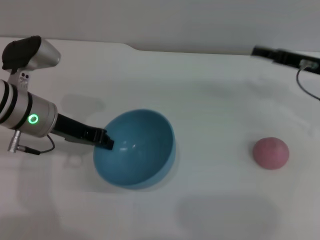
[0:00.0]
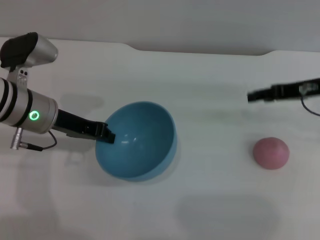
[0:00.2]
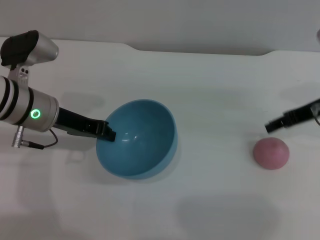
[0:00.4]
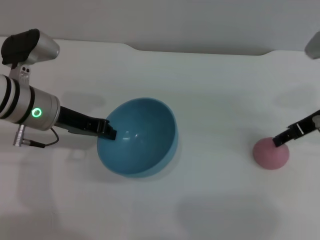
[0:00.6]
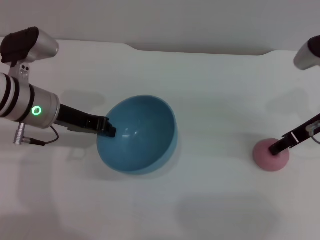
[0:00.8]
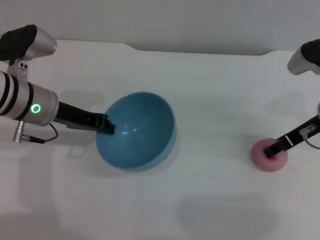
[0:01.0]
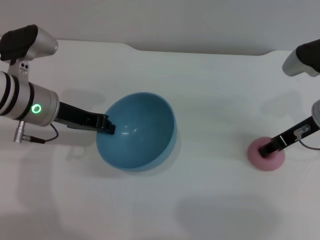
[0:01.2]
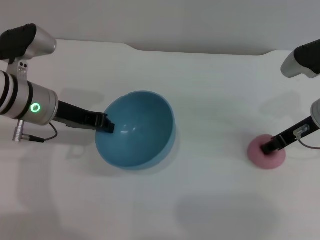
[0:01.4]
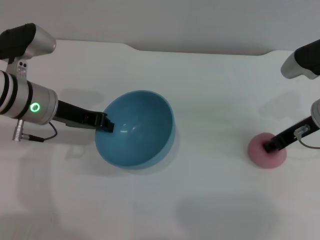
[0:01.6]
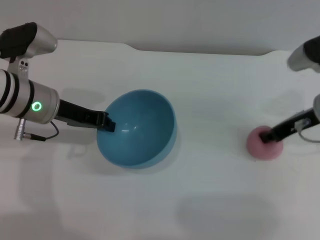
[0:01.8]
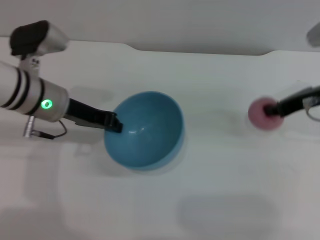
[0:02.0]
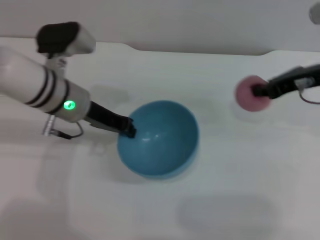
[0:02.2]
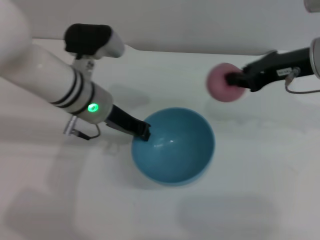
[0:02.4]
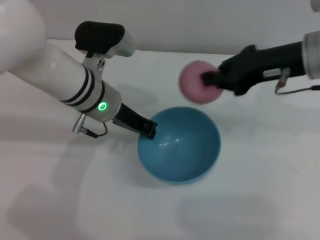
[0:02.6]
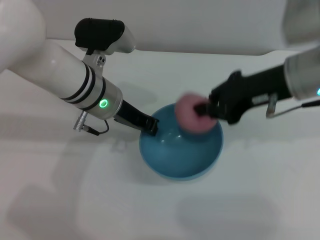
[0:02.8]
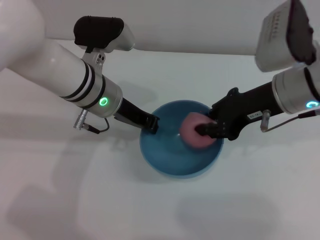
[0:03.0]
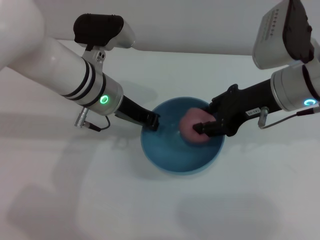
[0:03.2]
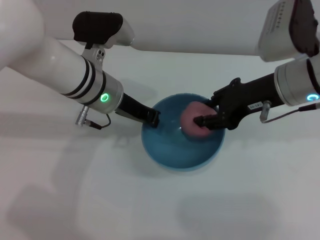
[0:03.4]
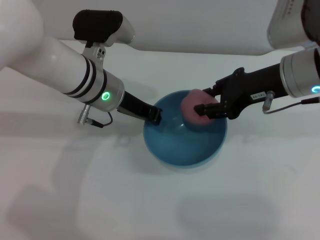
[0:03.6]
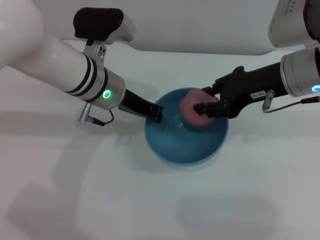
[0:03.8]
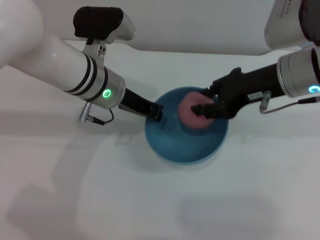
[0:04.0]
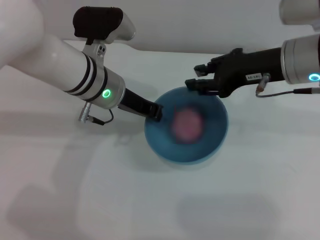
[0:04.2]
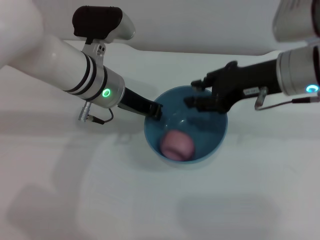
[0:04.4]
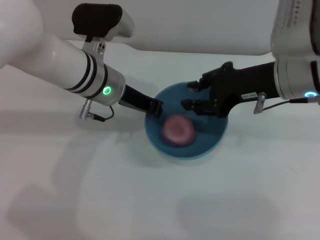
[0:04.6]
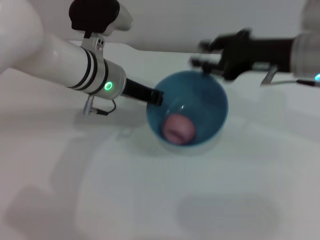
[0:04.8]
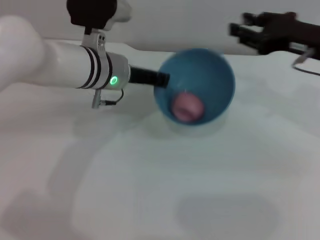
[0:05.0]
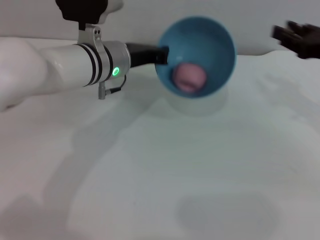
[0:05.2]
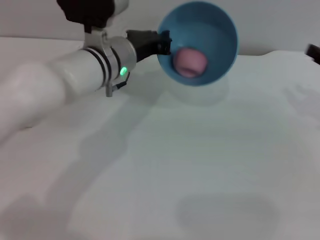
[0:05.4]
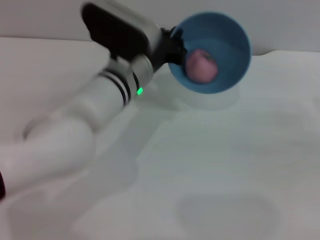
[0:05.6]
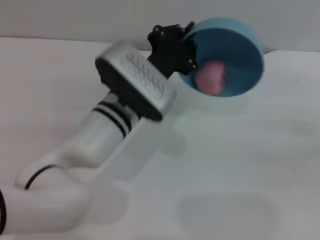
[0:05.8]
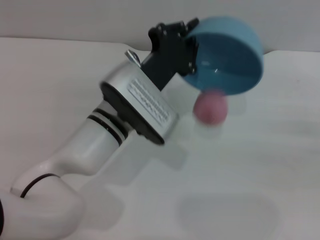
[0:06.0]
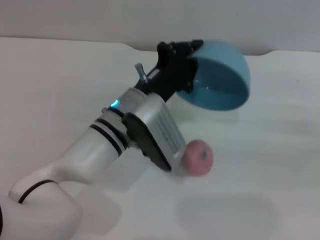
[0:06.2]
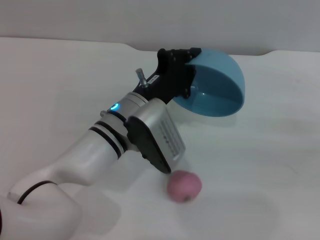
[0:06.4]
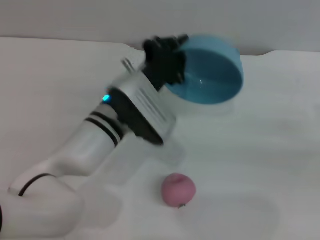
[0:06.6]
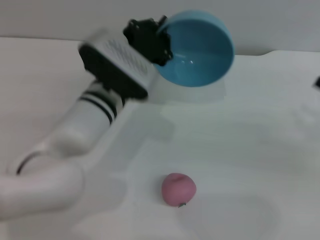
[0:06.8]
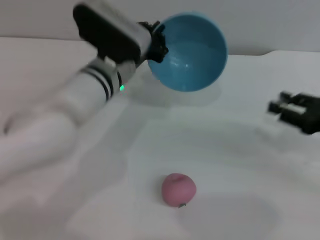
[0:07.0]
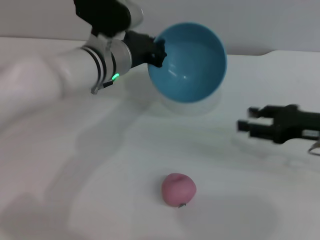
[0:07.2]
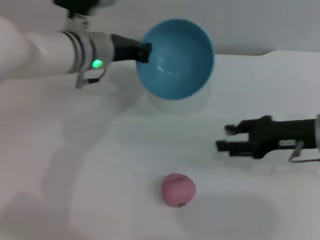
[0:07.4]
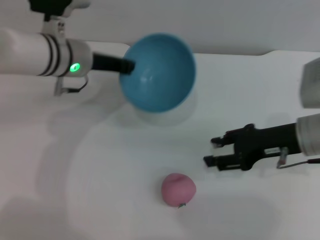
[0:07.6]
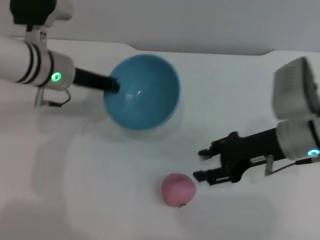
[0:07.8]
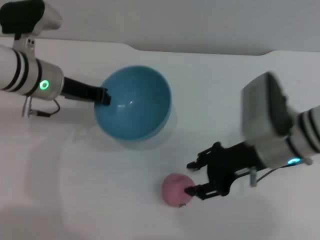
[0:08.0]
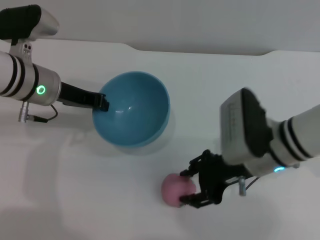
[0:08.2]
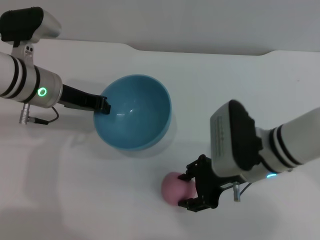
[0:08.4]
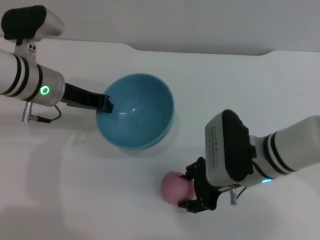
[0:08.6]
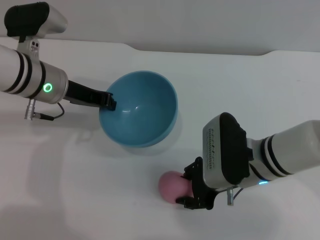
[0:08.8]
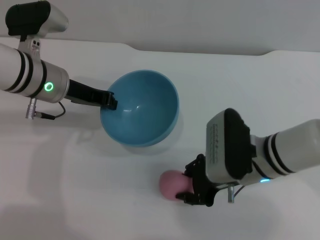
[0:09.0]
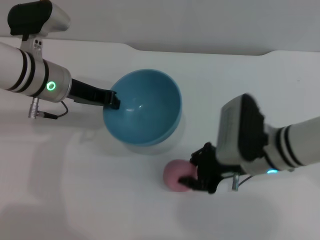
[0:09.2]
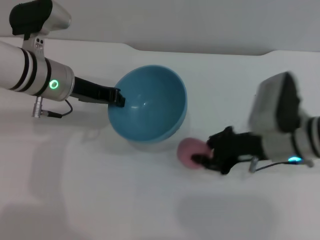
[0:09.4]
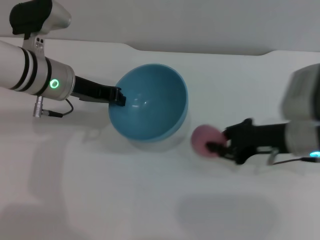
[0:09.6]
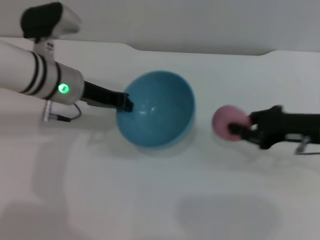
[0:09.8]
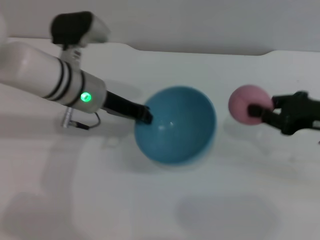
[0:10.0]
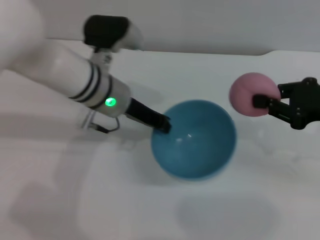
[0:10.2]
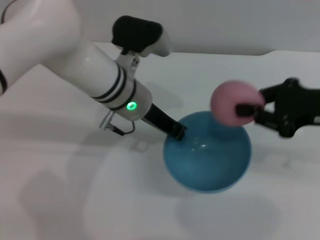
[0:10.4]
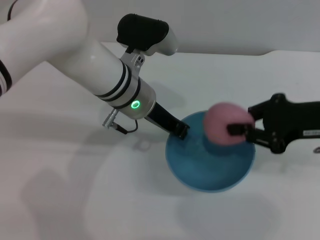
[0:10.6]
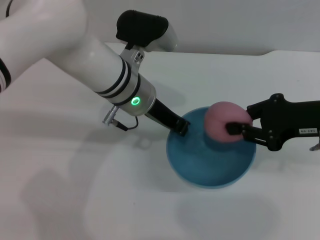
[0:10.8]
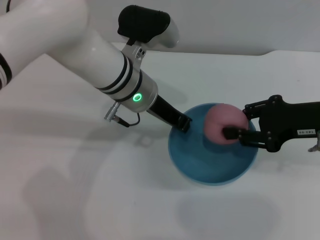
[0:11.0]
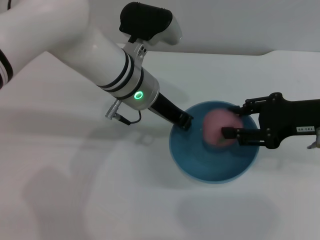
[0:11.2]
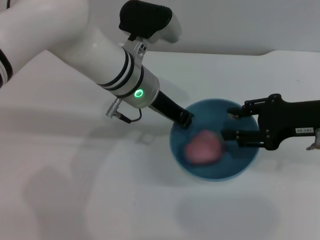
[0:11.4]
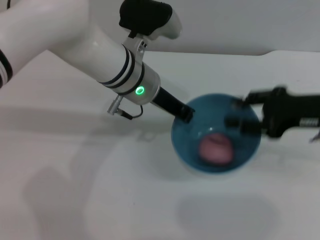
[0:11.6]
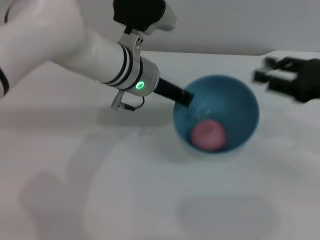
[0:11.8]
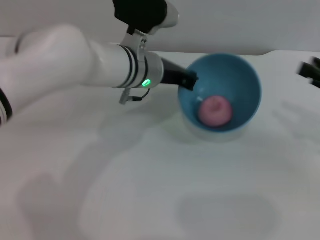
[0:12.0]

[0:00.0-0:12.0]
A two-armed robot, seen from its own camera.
Task of the whole recording: put the peach into the blue bowl and pour it out repeatedly.
Step, 0:00.8 to 0:02.0: Pick up the peach with the right gripper.
Step, 0:02.2 to 0:04.2: Place the peach into the bowl.
Step, 0:04.4 to 0:06.2: Pour the peach out of bowl.
Step, 0:06.4 to 0:09.6: Pick up the peach with the right gripper.
Step, 0:10.0 to 0:11.6: Place the peach into the bowl.
0:01.6 to 0:03.0: The right gripper moves to the left and upward, some 10 cm, and closes its fingers. Meanwhile the left gripper shifts approximately 10 cm to the right.
0:03.0 to 0:04.4: The right gripper opens up.
0:04.4 to 0:06.0: The right gripper shifts approximately 25 cm to the right and downward, while the left gripper shifts some 5 cm backward.
0:06.0 to 0:07.6: The right gripper travels to the left by about 20 cm, while the left gripper moves to the left and forward, roughly 15 cm.
0:07.6 to 0:09.0: The right gripper goes roughly 10 cm to the left.
0:09.0 to 0:10.4: The right gripper is displaced to the right and upward by about 15 cm, and closes up. Meanwhile the left gripper is displaced to the right by approximately 10 cm.
0:10.4 to 0:12.0: The right gripper goes some 10 cm to the right, and opens up.

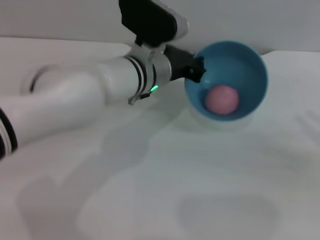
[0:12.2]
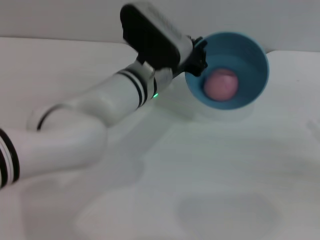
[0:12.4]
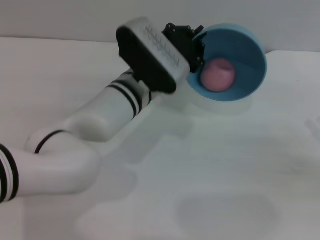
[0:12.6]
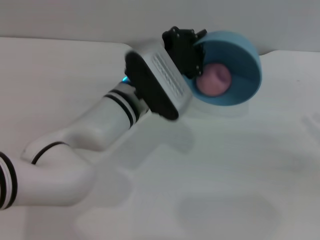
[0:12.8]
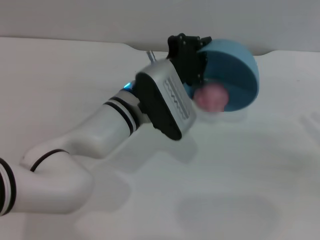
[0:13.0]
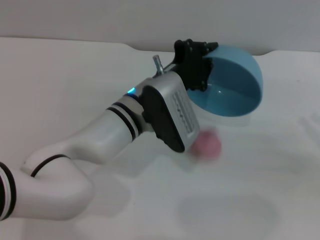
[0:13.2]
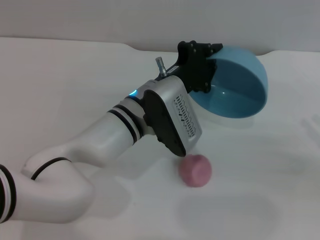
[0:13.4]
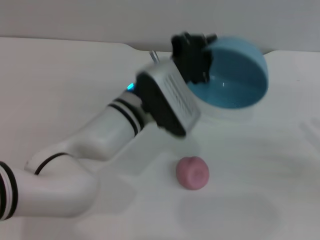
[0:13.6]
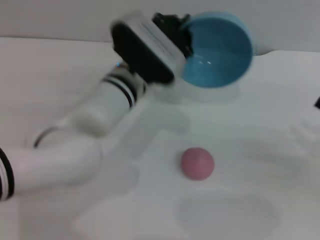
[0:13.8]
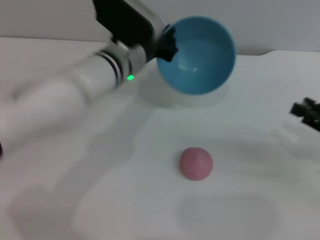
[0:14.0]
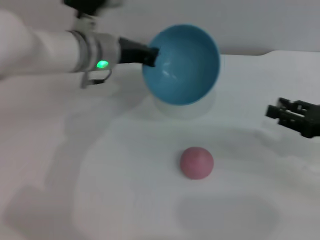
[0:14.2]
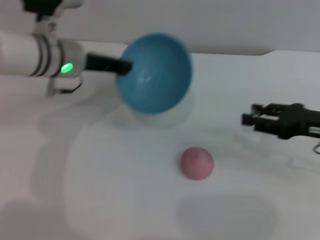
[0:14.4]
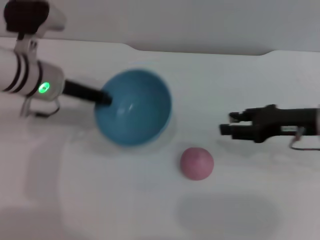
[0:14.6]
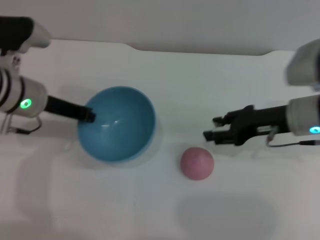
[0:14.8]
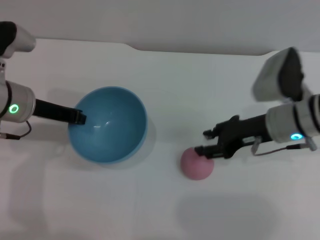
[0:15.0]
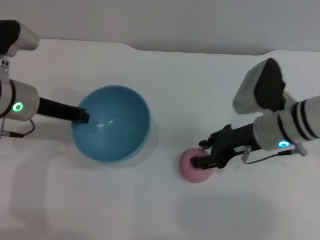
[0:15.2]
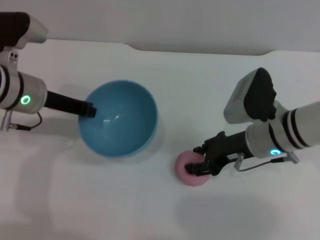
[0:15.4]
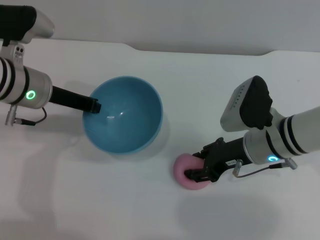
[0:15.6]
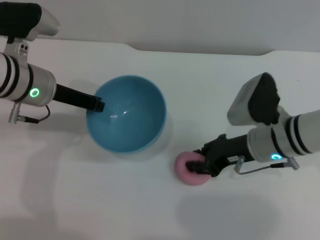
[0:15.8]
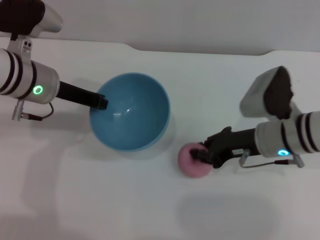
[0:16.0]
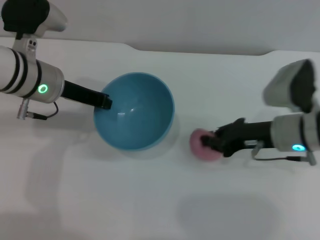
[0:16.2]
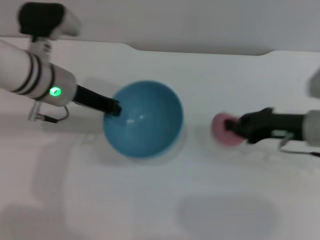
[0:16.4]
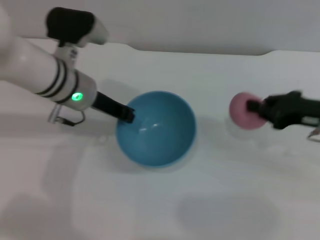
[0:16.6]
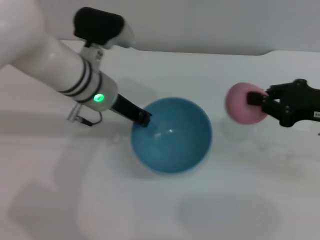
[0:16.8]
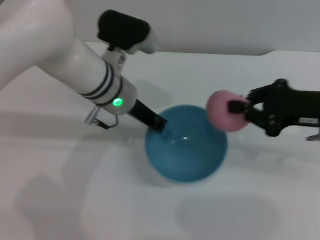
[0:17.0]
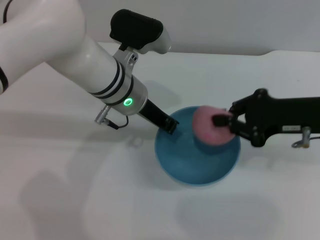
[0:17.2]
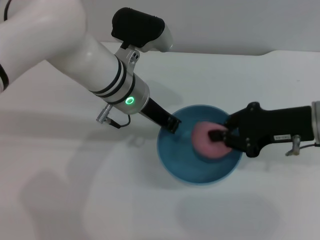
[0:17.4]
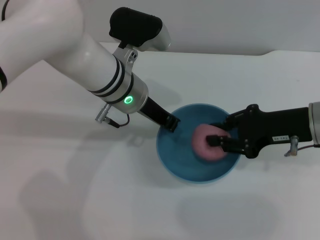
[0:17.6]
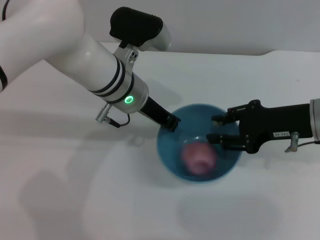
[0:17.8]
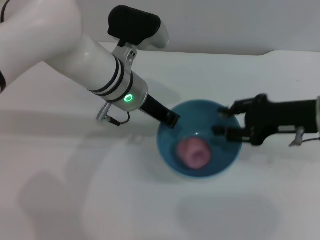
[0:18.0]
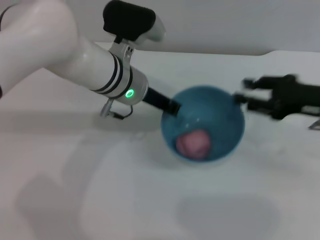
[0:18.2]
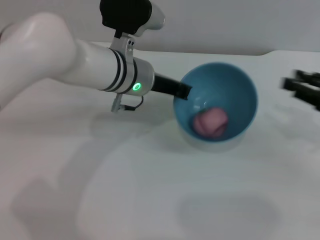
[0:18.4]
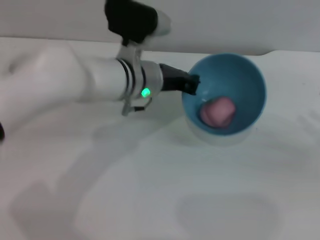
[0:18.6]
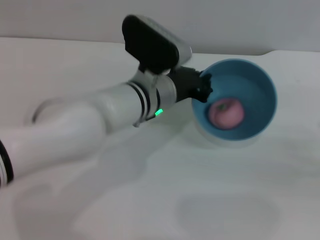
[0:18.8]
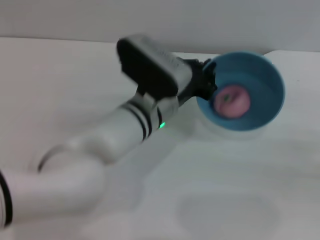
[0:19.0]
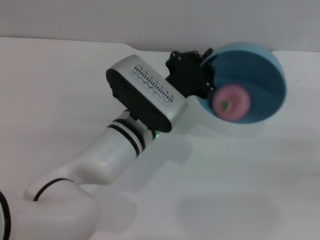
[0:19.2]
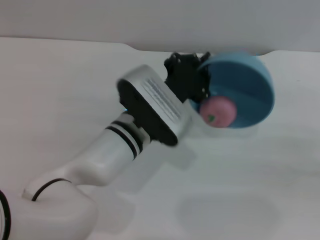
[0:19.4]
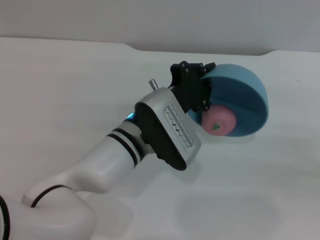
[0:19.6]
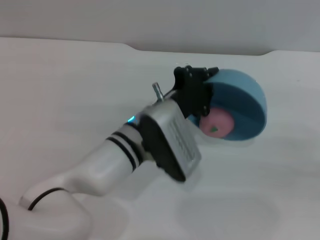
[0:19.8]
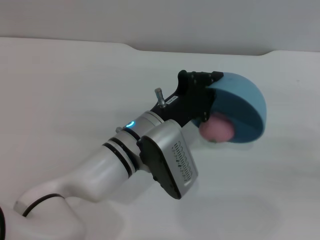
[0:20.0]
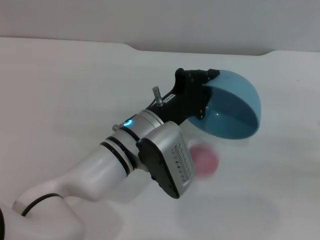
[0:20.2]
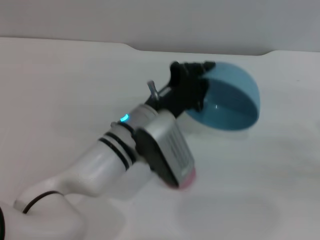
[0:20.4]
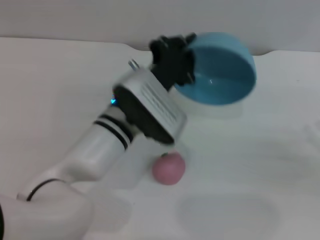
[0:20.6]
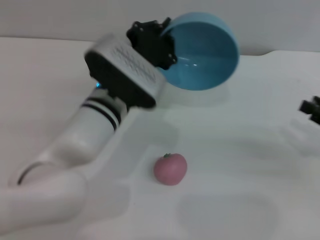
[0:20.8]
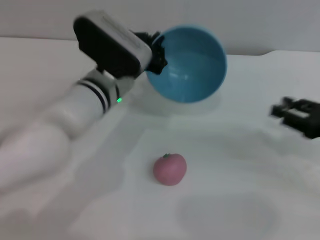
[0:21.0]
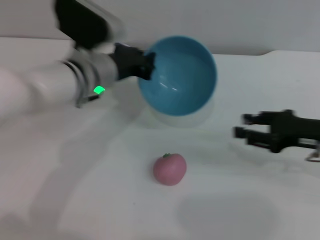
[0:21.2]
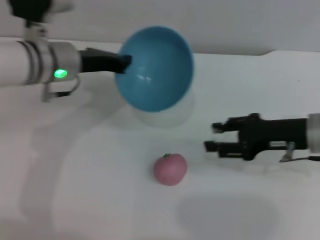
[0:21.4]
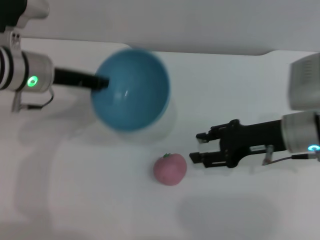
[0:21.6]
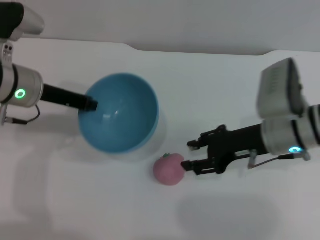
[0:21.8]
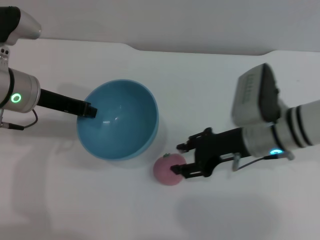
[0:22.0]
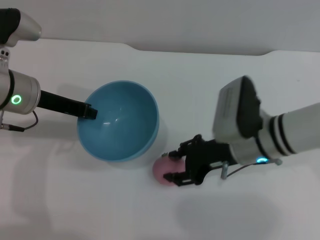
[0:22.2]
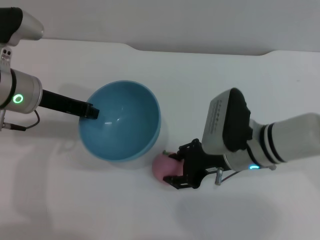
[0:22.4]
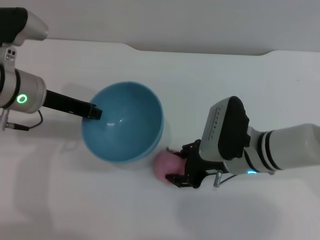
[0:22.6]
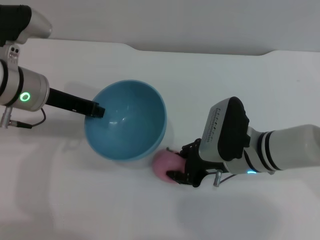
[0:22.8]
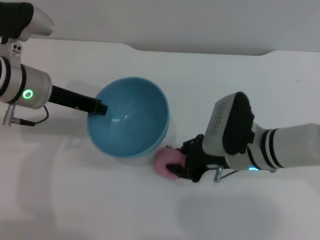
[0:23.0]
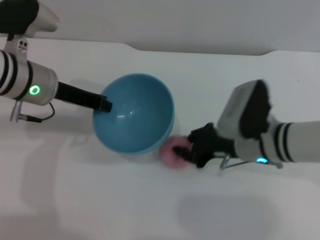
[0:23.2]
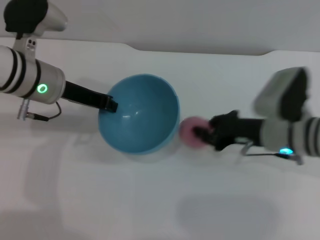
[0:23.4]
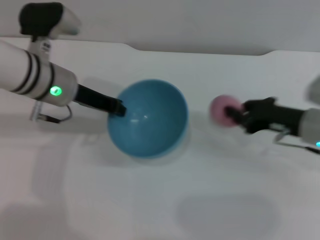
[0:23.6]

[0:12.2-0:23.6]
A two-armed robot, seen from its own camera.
Task of the whole recording: put the peach into the blue bowl and pour it out repeatedly.
Step, 0:12.2 to 0:13.4: Pour the peach out of bowl.
Step, 0:13.6 to 0:16.4: Pick up the peach with the right gripper.
Step, 0:16.6 to 0:18.0: Place the peach into the bowl.
Step, 0:18.2 to 0:20.2: Pour the peach out of bowl.
Step, 0:20.4 to 0:23.4: Pick up the peach with the right gripper.
0:12.2 to 0:13.6: The left gripper moves roughly 5 cm.
0:13.6 to 0:15.0: The left gripper goes about 20 cm to the left; the right gripper travels to the left and forward by approximately 20 cm.
0:15.0 to 0:16.4: Both grippers travel together to the right, some 5 cm. The right gripper closes its fingers.
0:16.4 to 0:17.8: The left gripper travels to the right by some 10 cm, while the right gripper opens.
0:17.8 to 0:19.4: The right gripper heads to the right and backward, covering roughly 20 cm. Meanwhile the left gripper moves backward and downward, roughly 10 cm.
0:19.4 to 0:20.8: The right gripper shifts by some 5 cm.
0:20.8 to 0:22.2: The grippers both shift to the left by approximately 20 cm.
0:22.2 to 0:23.6: The right gripper travels to the right by some 10 cm, and closes up. Meanwhile the left gripper changes place by about 5 cm.
